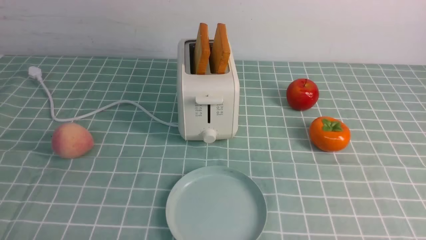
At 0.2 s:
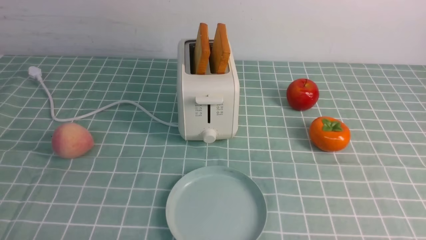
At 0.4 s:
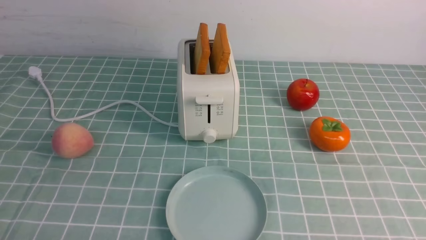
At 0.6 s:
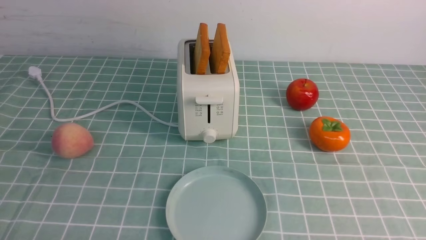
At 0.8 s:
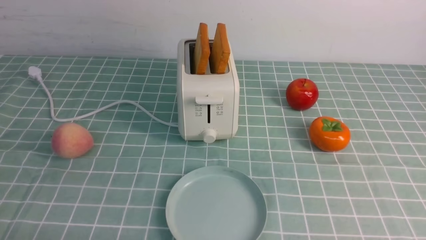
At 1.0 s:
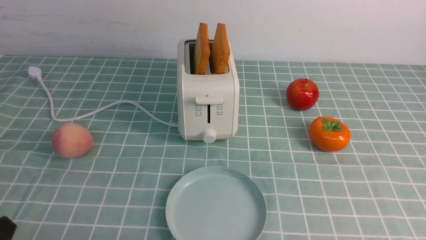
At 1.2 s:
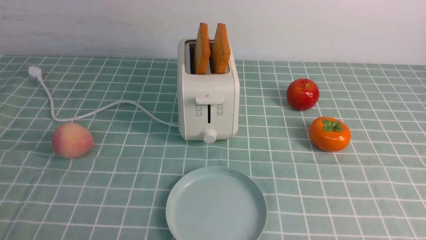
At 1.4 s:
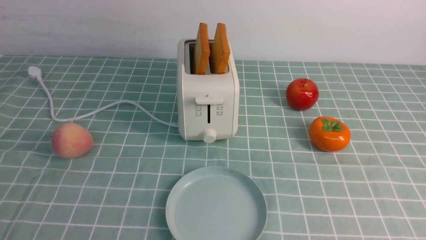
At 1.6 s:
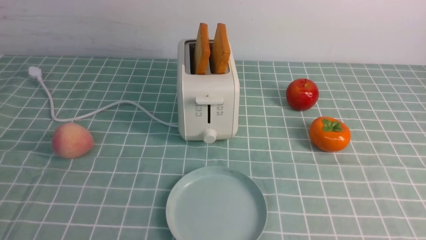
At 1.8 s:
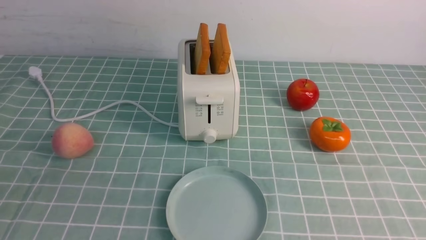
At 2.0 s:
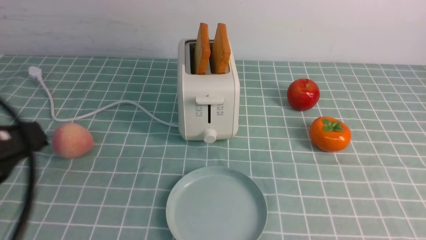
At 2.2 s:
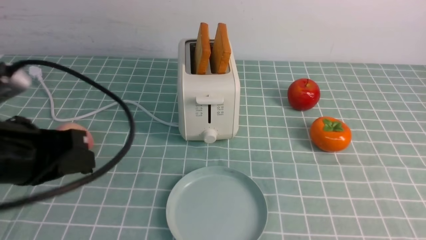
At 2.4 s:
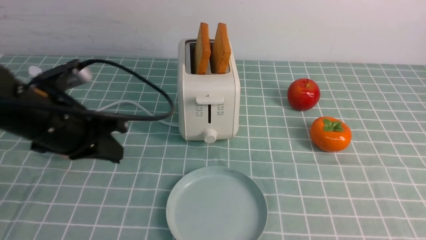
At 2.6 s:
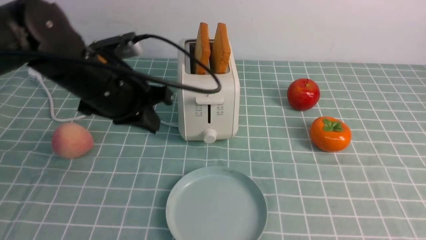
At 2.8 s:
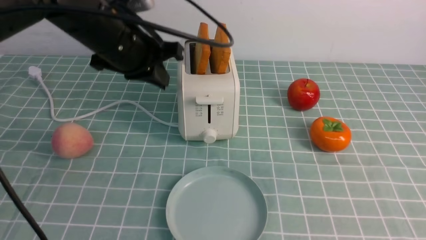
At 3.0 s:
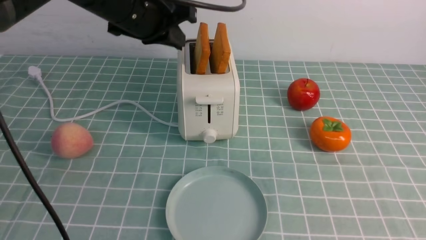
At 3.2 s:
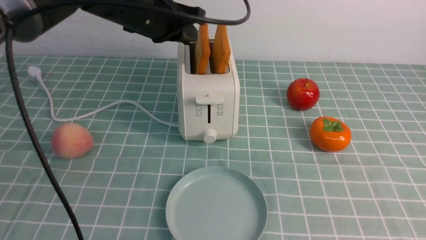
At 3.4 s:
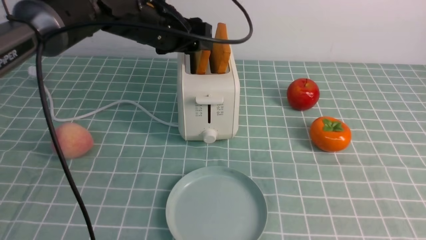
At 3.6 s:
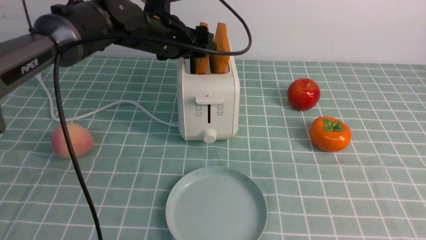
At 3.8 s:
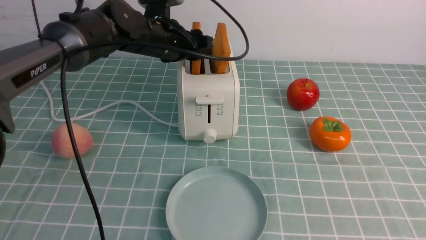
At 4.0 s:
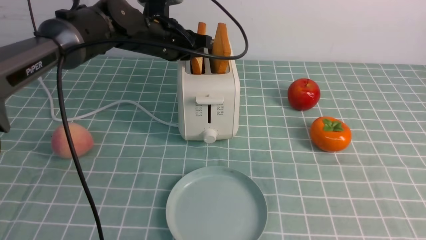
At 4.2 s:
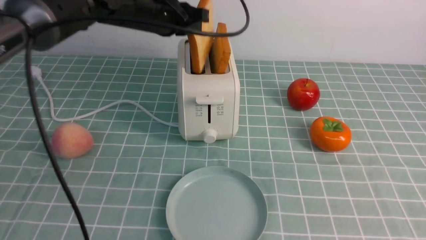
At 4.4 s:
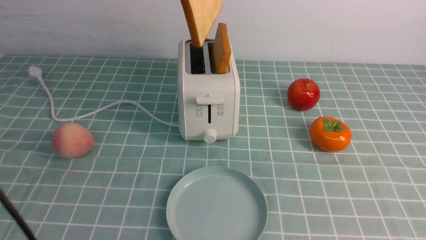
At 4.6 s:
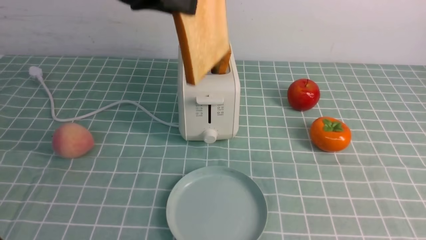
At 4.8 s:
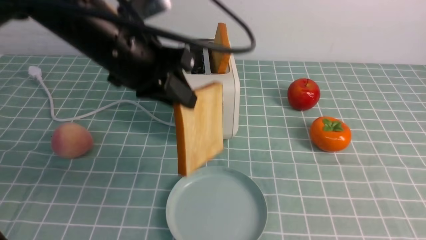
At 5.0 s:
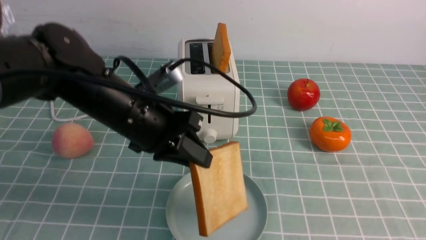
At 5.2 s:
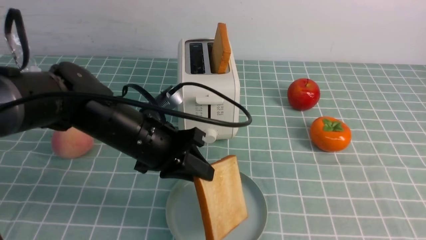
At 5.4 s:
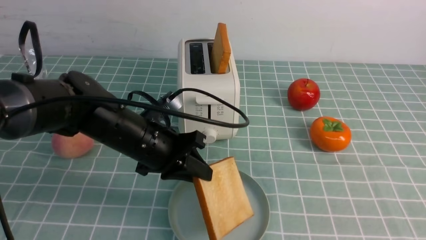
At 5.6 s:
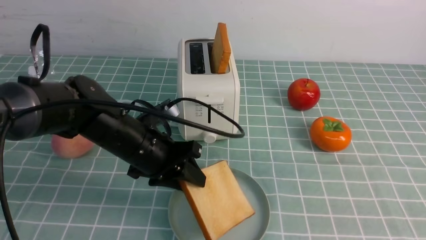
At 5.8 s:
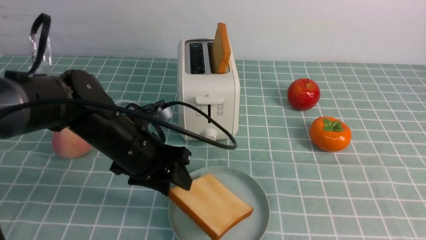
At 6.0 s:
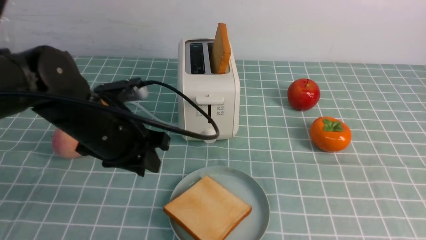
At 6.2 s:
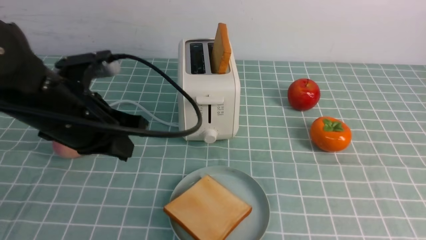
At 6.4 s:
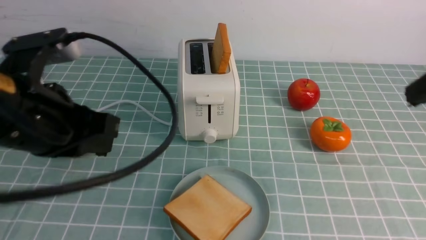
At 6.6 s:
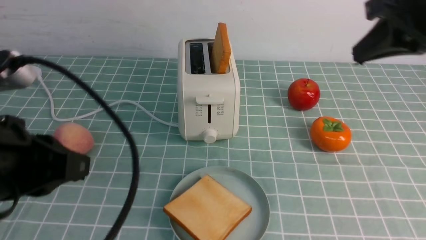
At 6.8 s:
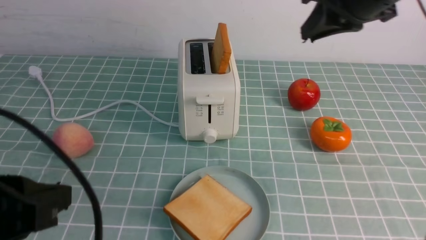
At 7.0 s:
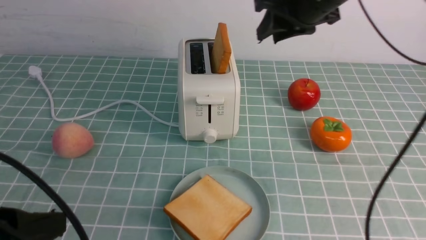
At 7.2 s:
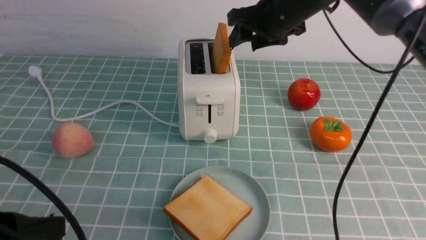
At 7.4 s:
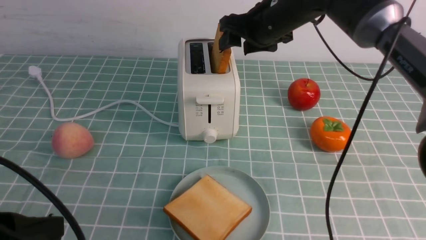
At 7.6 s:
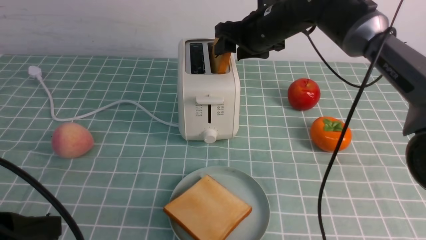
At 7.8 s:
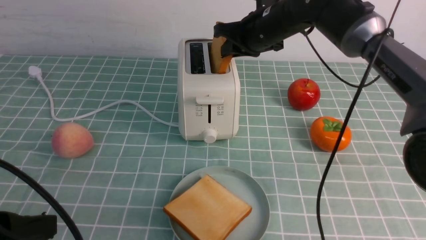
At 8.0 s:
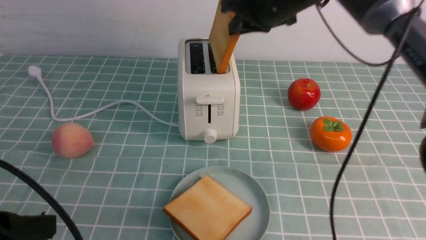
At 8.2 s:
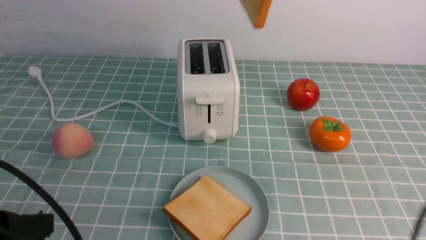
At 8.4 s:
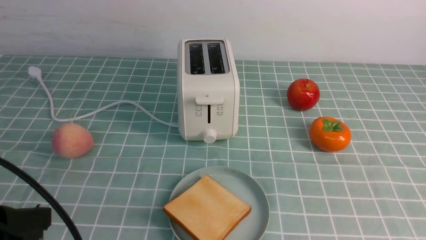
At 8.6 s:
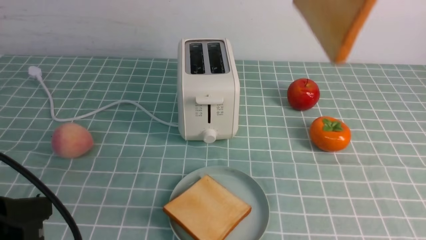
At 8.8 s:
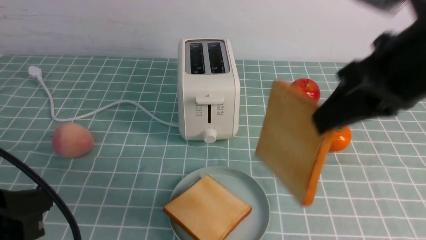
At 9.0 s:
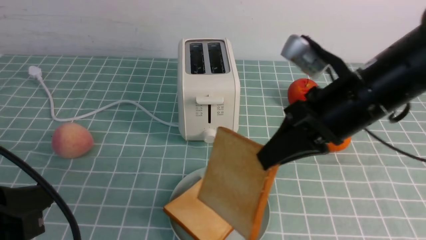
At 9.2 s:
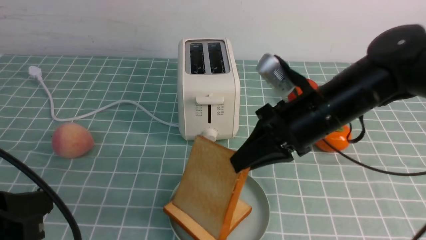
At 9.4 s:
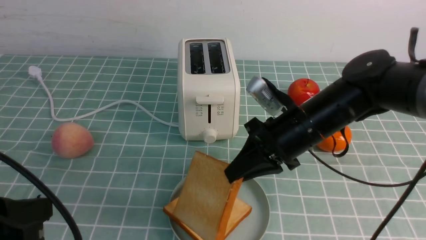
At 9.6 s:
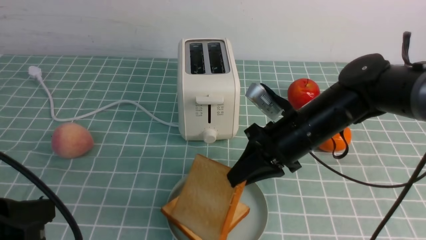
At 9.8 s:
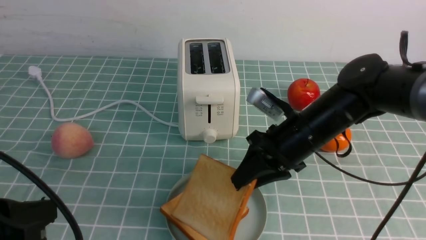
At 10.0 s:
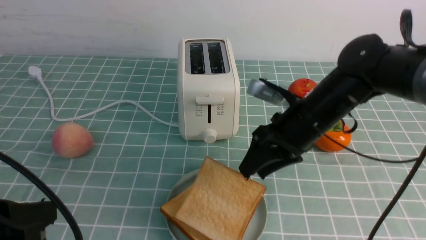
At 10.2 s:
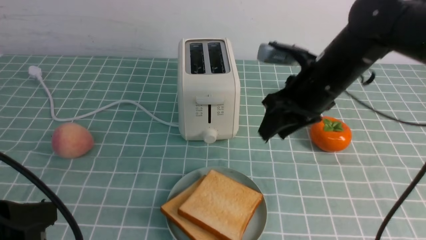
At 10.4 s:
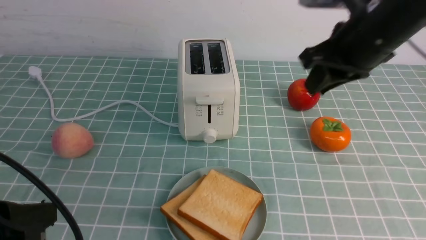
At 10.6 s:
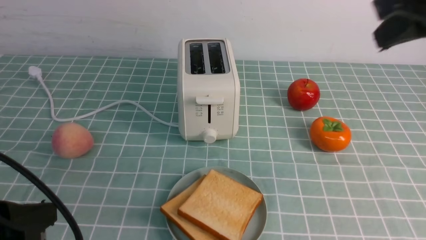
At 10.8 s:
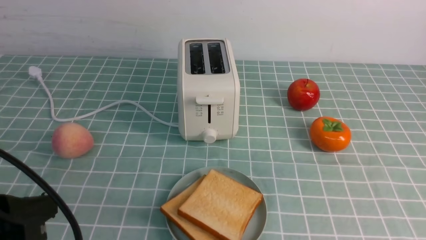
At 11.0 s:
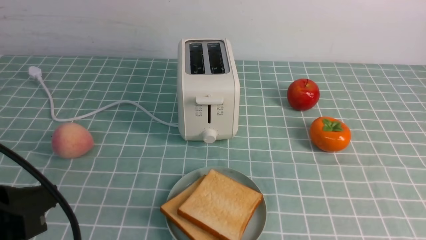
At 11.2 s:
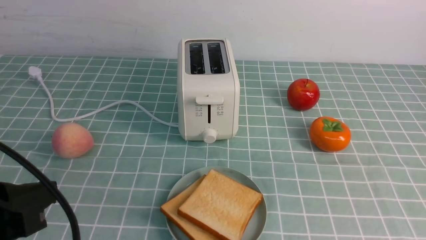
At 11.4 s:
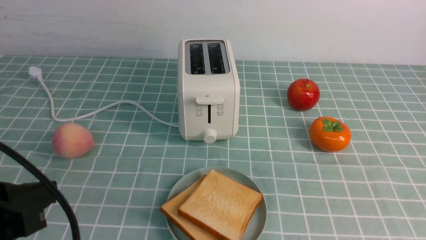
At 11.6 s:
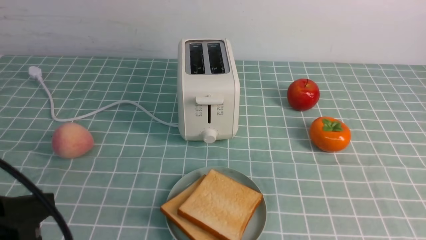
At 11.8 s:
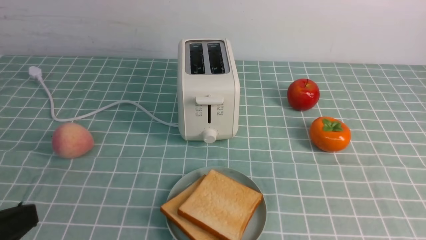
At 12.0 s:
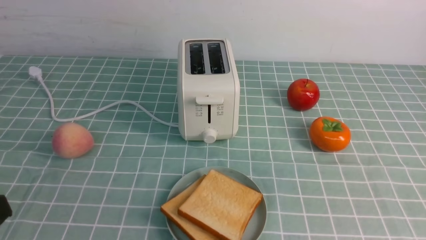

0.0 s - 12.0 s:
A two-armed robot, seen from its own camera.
Task of the whole recording: take toasted bread from bread machine on blue coffee table place on plate.
Step, 0.0 s - 4.2 s: use the left arm to take out a slice of bread.
Step, 4.4 s - 6.4 s: use the left arm to put a slice of bread into the empty plate.
Step, 6.6 s - 8.0 s: use the right arm to take out a slice of bread.
Step, 8.2 s - 10.4 s: use the right arm to put a slice of bread into the plate.
1.6 s - 3.0 s: The right gripper goes some 10 cm upward, and closes; the left gripper is displaced forward and to the right by roughly 40 cm.
3.0 s - 4.4 s: The left gripper moves upward, some 5 cm, and opens and closes again.
4.4 s - 6.0 s: The right gripper moves upward, some 10 cm. Meanwhile the left gripper shifts roughly 15 cm downward and backward.
6.0 s - 7.6 s: The left gripper is displaced backward by about 20 cm, and closes up; the right gripper travels forward and to the left by some 40 cm, and opens its fingers.
7.6 s - 9.0 s: The right gripper goes about 20 cm backward, and closes up.
9.0 s - 10.4 s: The right gripper goes about 5 cm upward, and opens, then closes once more.
10.4 s - 12.0 s: The right gripper shifts approximately 30 cm backward and to the right. The left gripper shifts approximately 5 cm backward.

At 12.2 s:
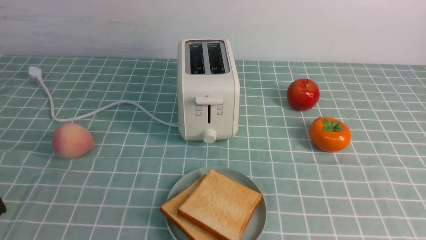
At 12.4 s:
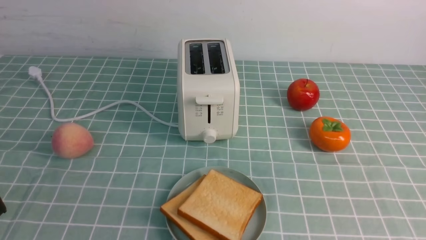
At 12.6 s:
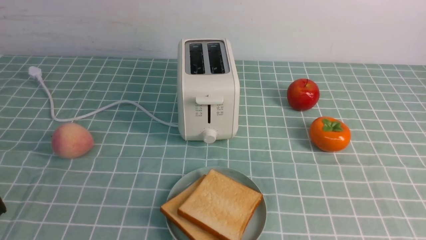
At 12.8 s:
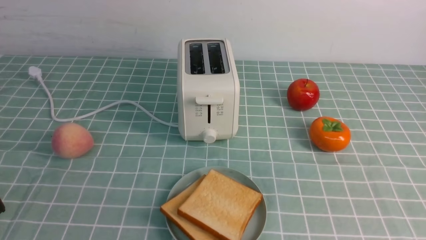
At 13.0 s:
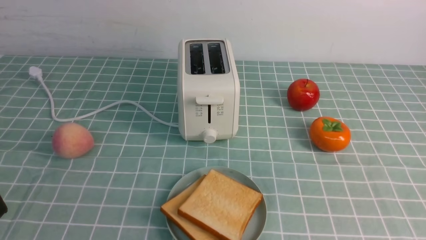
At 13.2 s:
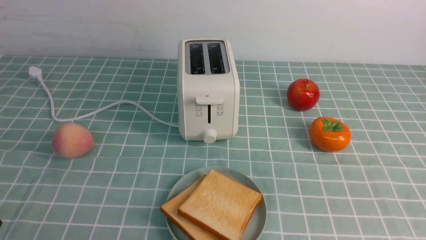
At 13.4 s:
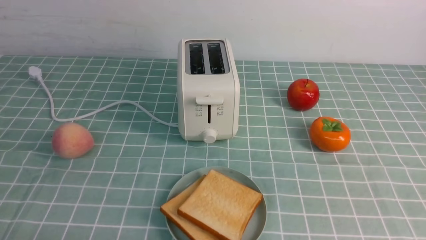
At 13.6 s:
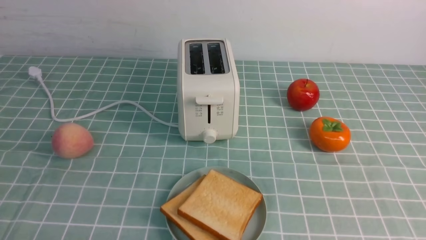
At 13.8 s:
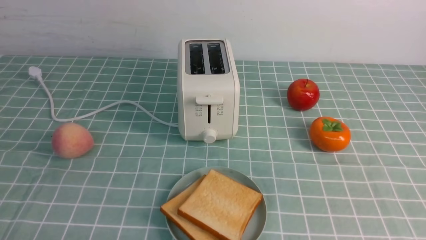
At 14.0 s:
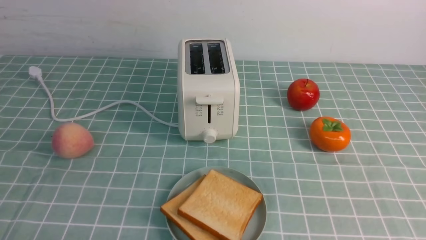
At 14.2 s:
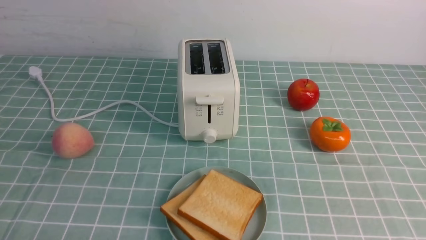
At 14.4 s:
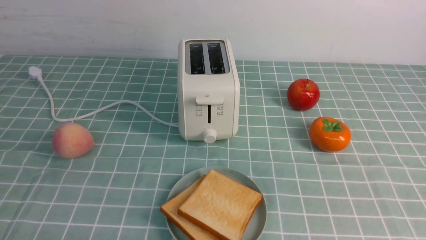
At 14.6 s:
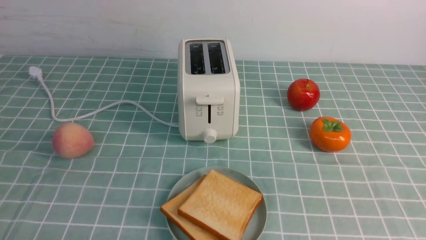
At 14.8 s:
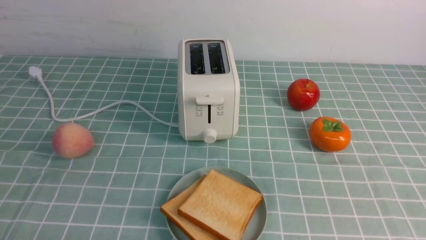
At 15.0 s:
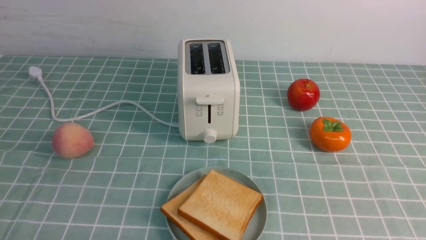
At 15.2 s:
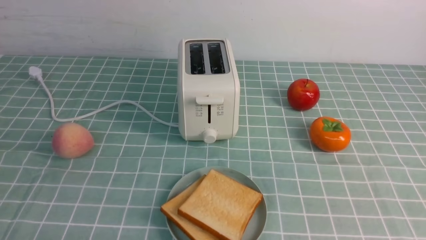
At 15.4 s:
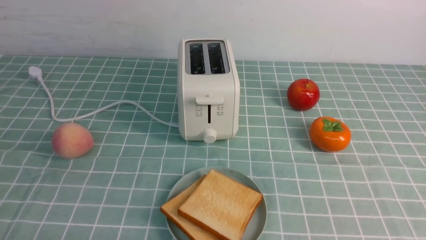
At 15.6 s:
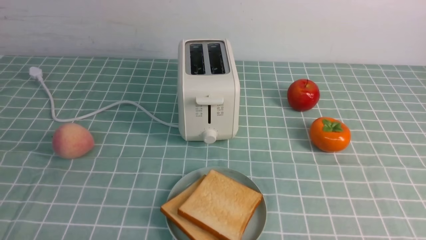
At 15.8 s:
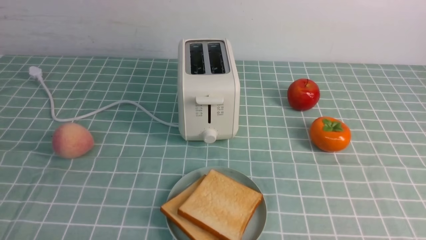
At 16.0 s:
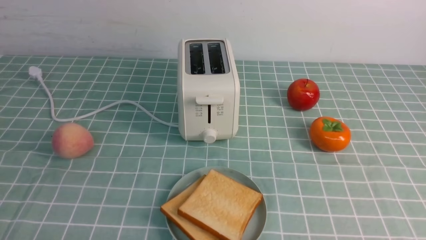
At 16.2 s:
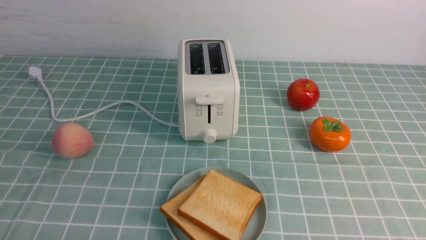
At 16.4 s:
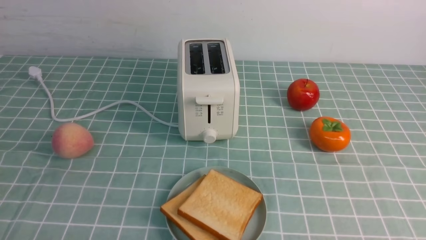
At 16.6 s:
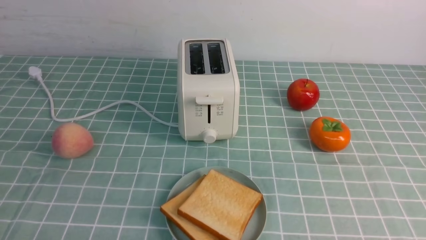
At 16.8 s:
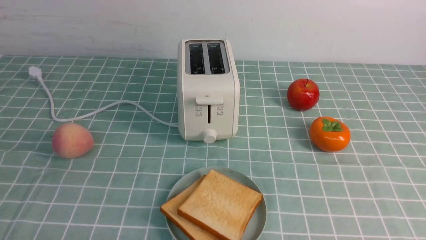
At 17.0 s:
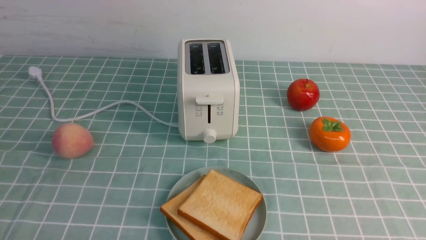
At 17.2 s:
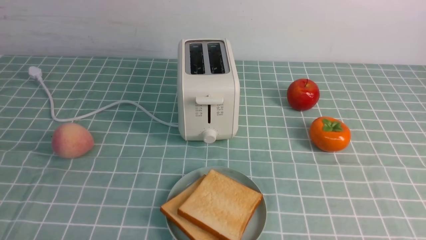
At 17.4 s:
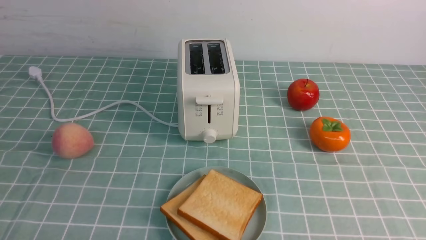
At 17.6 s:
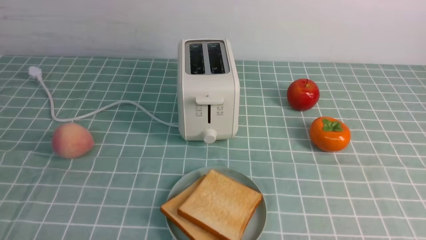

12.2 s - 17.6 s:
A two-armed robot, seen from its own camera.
Task of the whole recording: take toasted bread from bread machine on blue coffee table place on plate.
16.2 s - 17.6 s: Neither gripper changes place.
